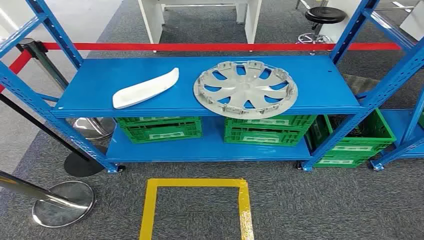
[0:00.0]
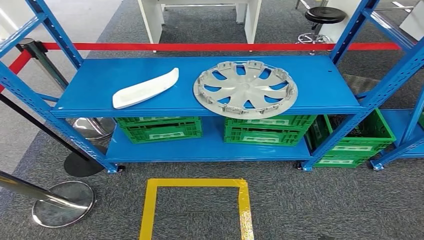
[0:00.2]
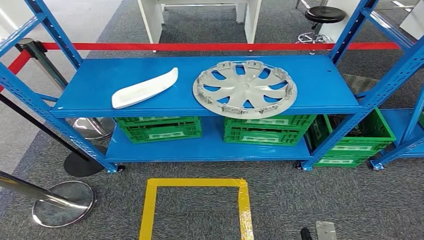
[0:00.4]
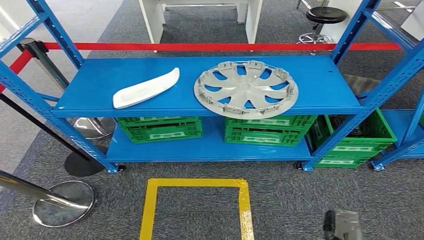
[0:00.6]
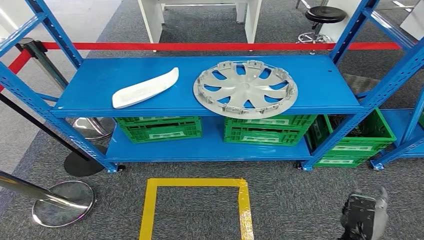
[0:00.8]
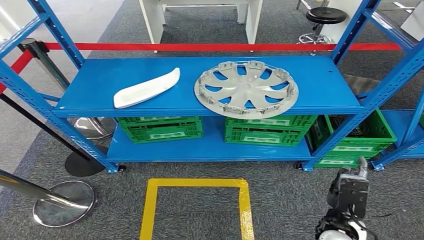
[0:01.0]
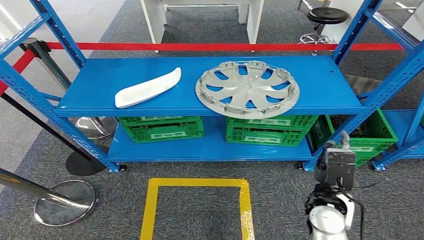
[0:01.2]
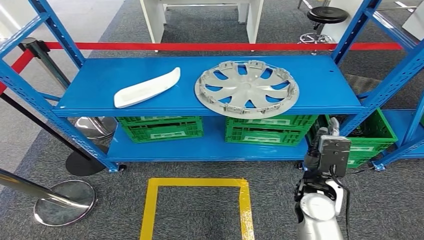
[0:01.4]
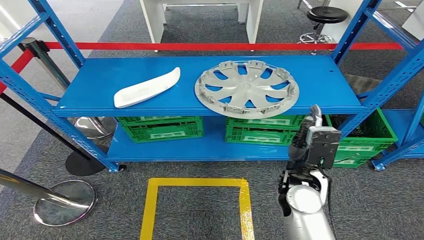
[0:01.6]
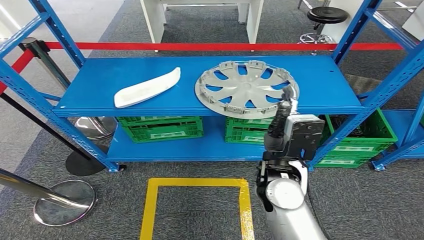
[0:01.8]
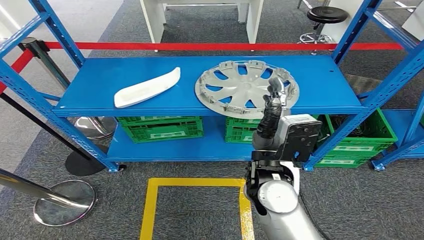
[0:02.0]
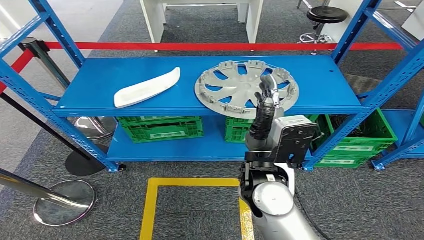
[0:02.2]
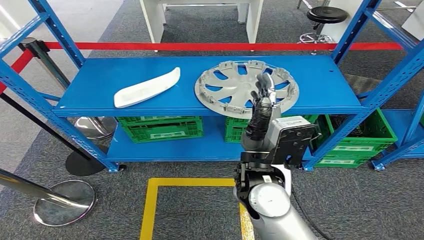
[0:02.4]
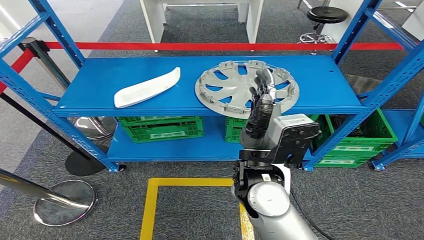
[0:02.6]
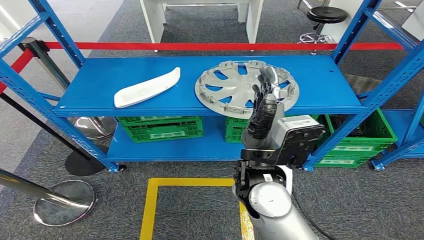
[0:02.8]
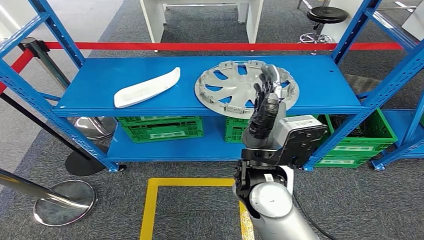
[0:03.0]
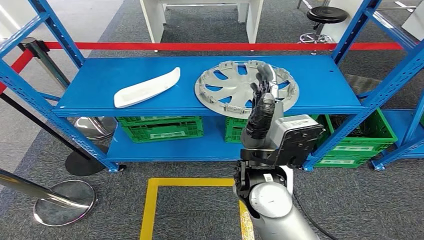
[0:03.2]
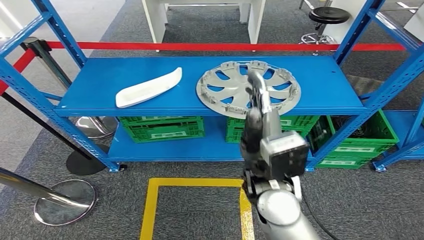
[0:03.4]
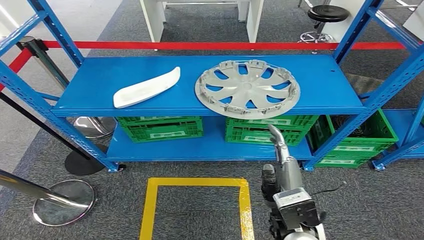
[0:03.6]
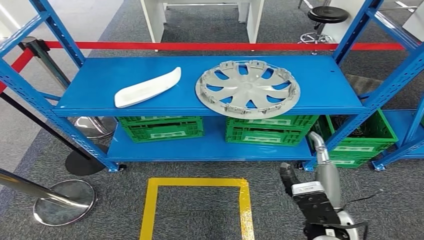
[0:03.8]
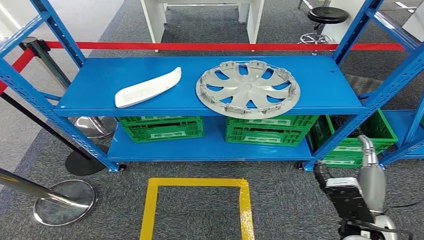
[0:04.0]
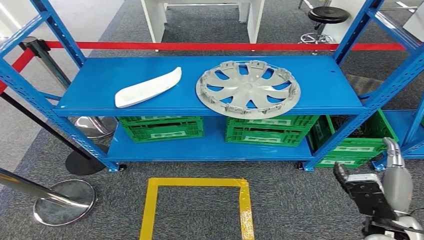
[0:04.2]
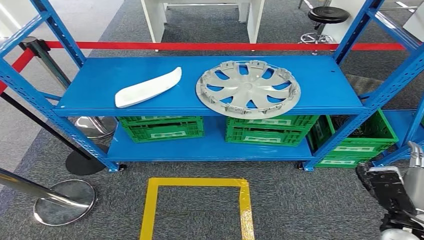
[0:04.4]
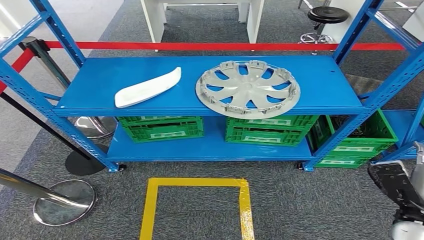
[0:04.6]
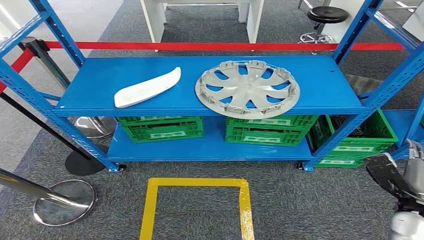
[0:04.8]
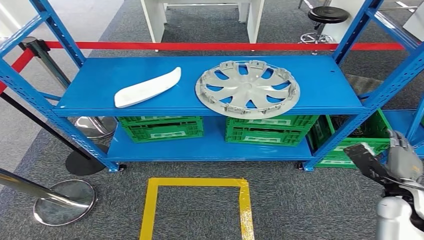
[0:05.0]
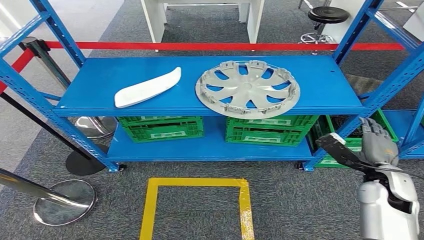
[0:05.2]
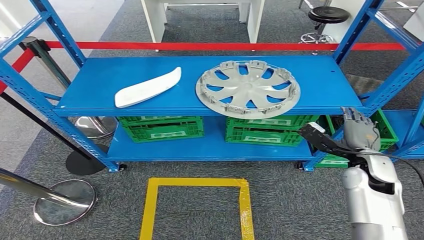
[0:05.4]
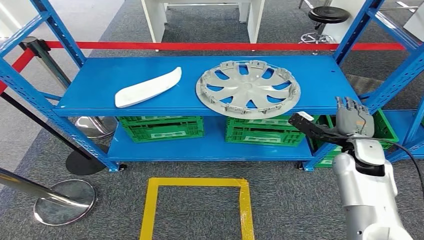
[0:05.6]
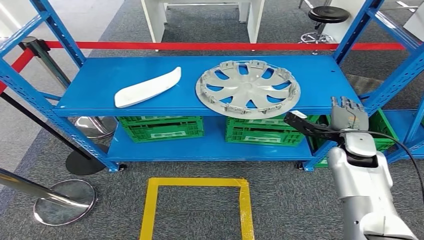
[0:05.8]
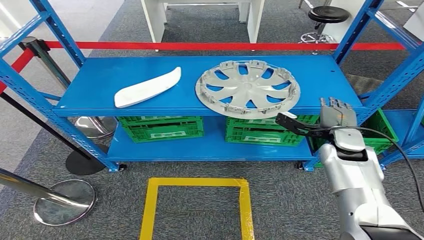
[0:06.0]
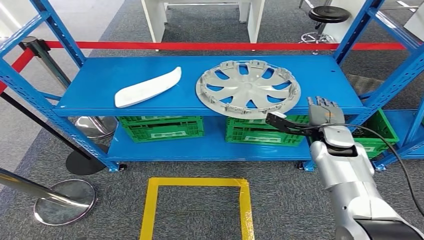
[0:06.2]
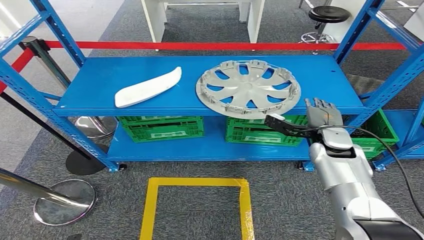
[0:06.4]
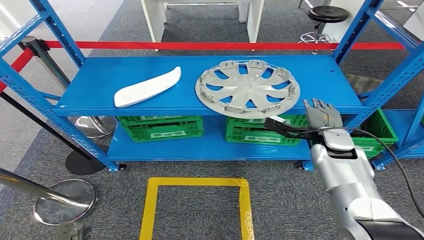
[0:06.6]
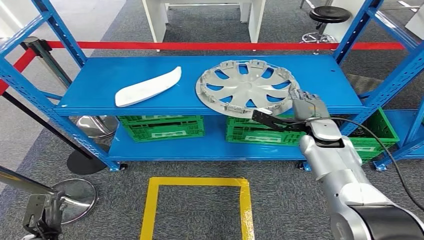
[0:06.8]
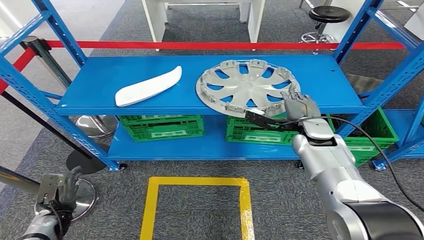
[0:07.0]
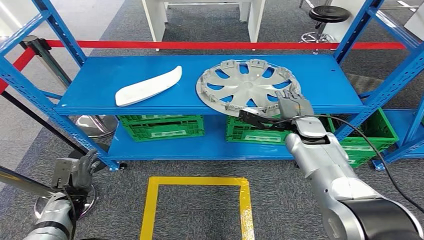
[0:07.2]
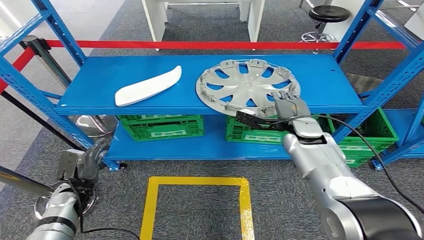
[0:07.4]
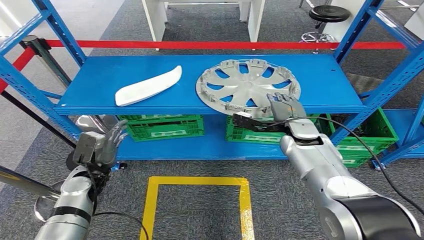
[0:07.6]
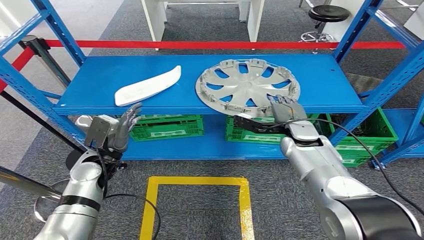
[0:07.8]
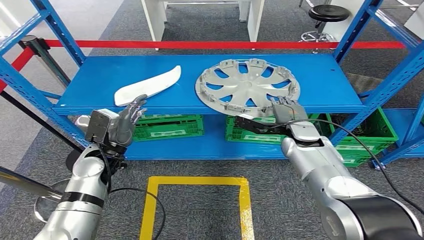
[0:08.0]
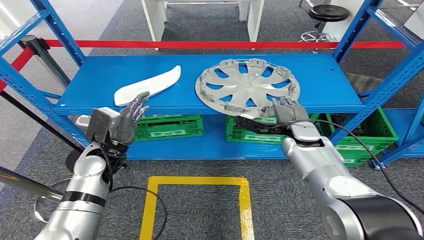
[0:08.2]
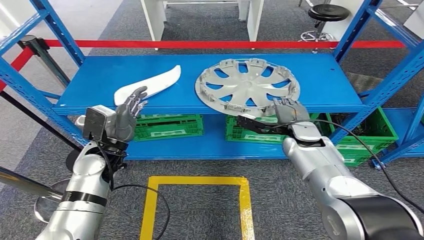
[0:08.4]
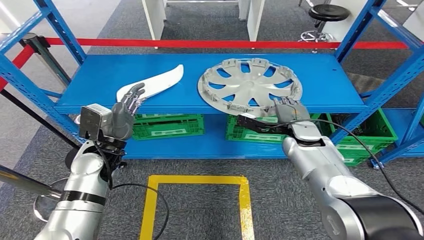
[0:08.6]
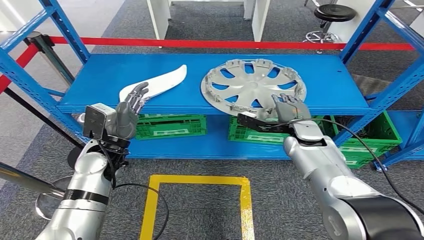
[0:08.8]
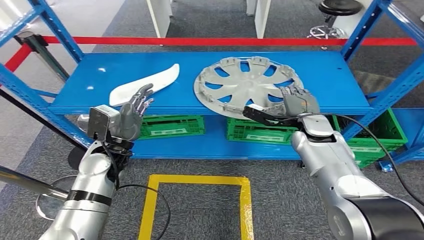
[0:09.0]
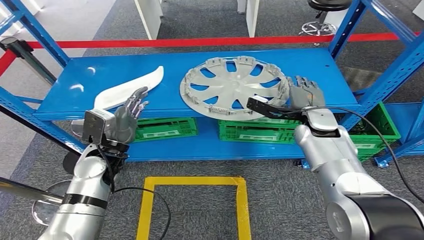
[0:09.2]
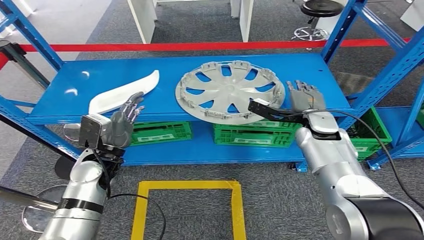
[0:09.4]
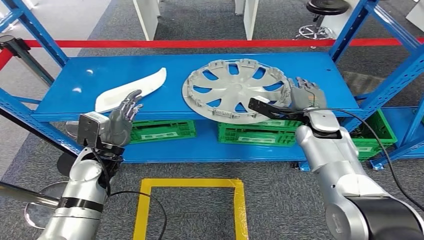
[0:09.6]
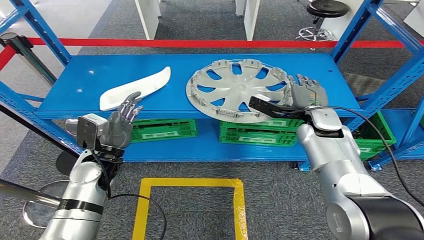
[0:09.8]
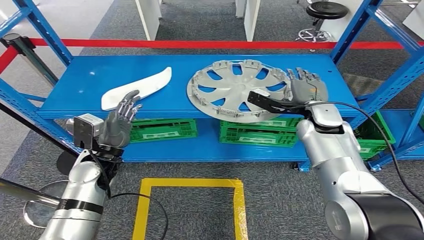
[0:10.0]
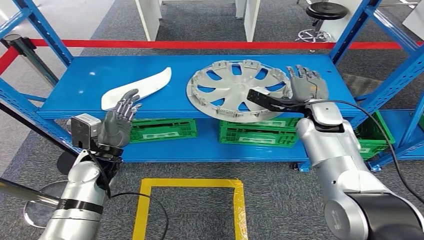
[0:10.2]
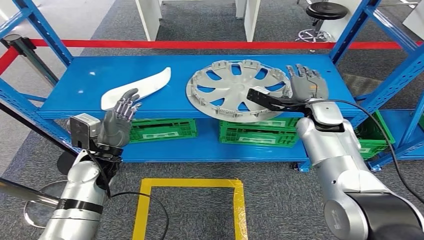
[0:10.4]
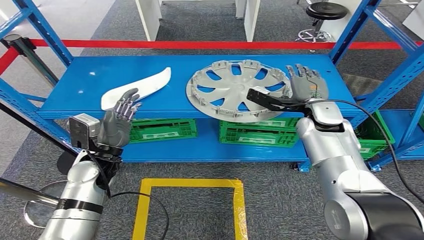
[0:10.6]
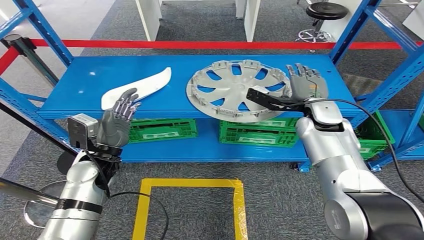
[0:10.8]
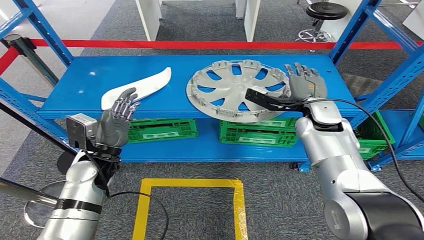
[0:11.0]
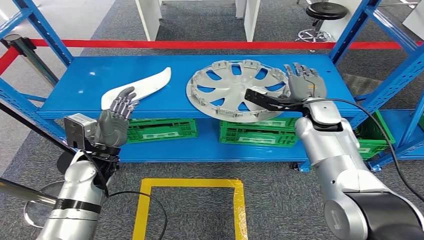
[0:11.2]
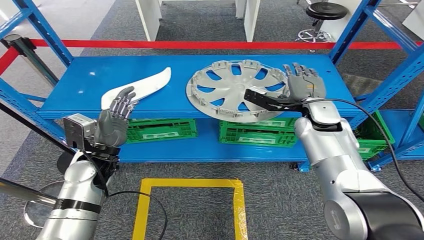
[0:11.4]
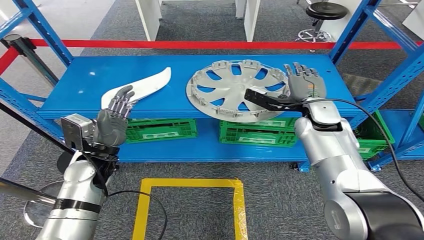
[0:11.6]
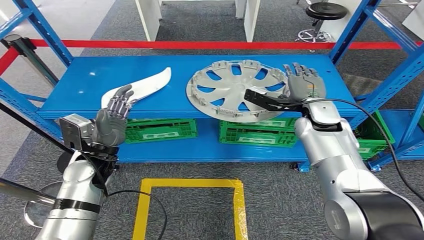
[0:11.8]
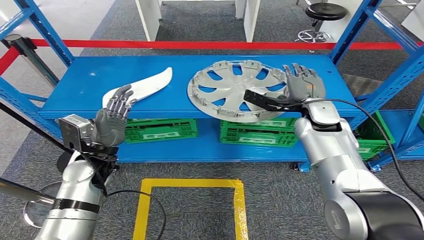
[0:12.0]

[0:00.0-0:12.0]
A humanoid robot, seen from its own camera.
0:01.6 to 0:03.0: The right hand goes about 15 cm upward and to the left.
0:03.0 to 0:04.4: The right hand heads to the right and downward, covering about 30 cm.
0:04.4 to 0:06.0: The right hand shifts roughly 20 cm forward.
0:10.4 to 0:12.0: Both hands stay put.

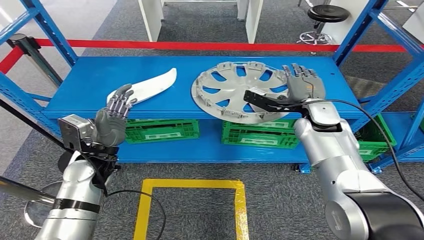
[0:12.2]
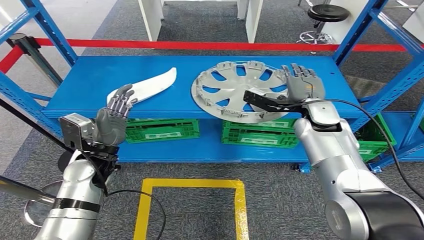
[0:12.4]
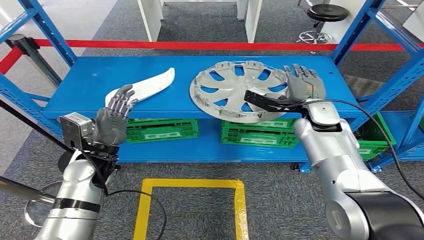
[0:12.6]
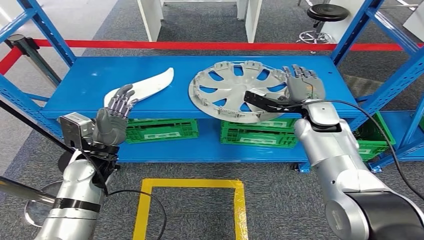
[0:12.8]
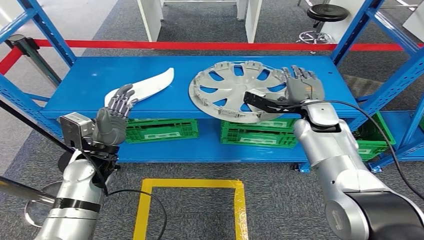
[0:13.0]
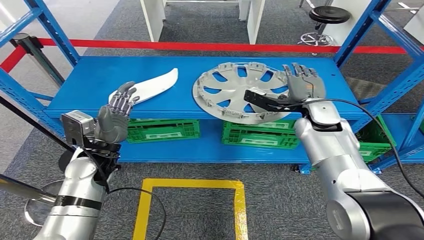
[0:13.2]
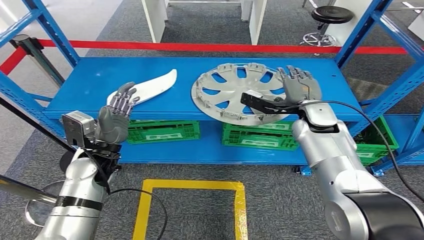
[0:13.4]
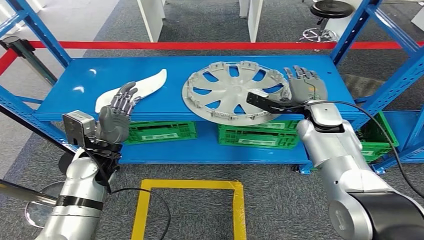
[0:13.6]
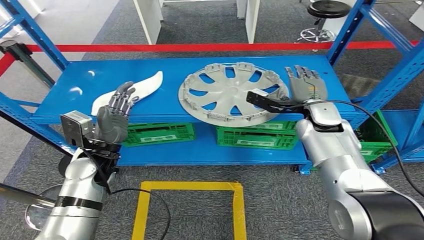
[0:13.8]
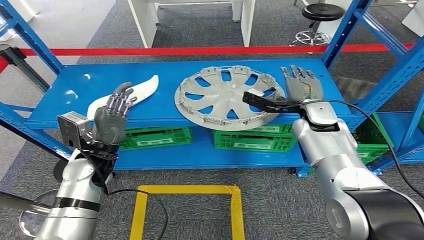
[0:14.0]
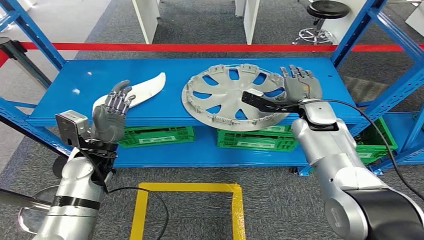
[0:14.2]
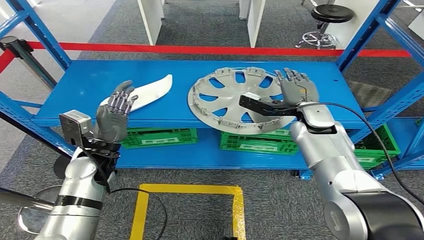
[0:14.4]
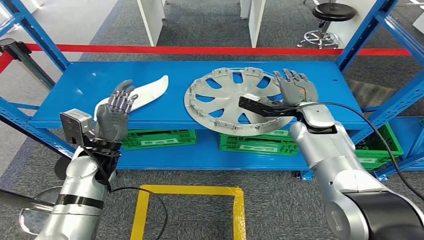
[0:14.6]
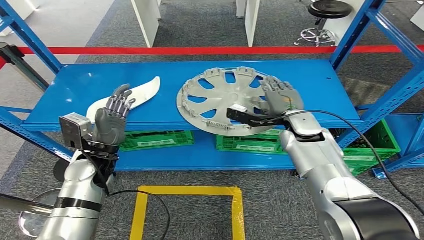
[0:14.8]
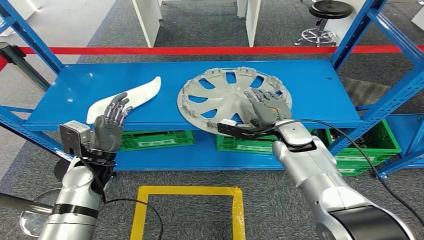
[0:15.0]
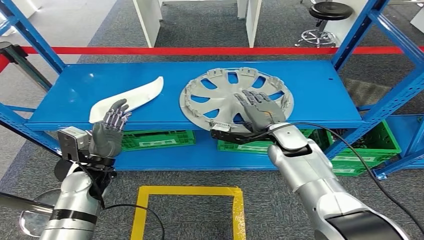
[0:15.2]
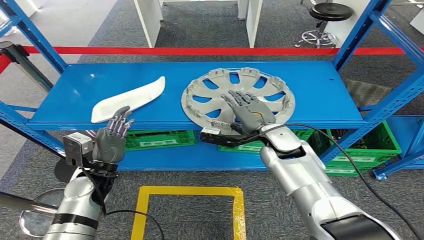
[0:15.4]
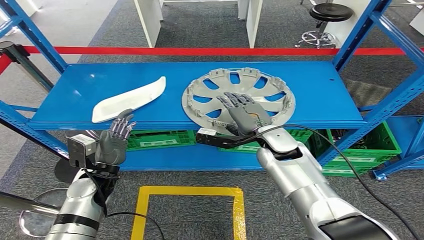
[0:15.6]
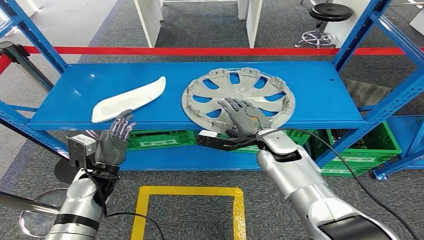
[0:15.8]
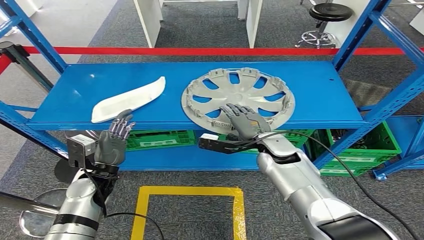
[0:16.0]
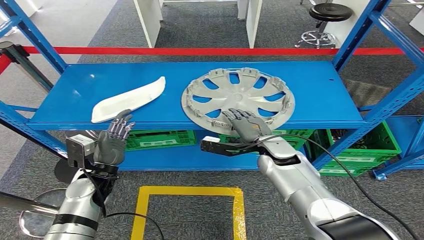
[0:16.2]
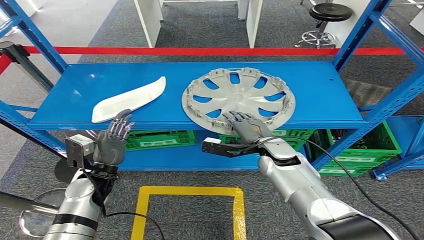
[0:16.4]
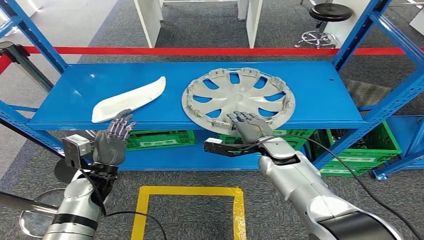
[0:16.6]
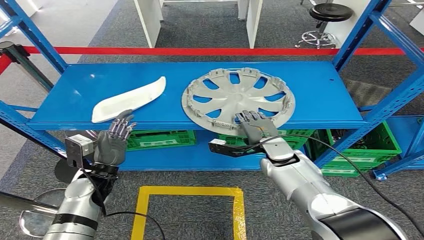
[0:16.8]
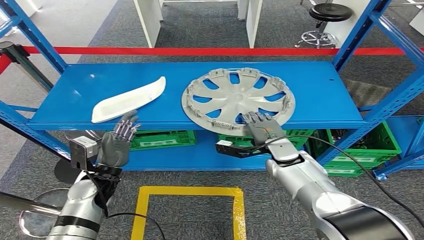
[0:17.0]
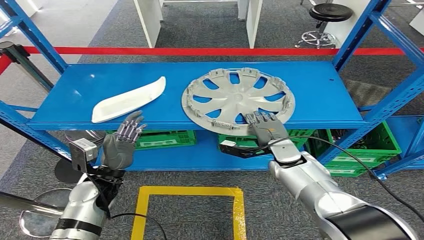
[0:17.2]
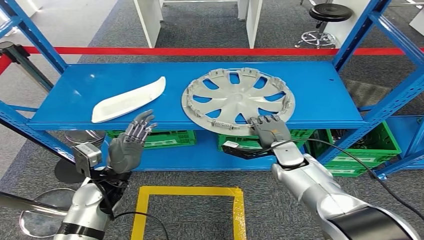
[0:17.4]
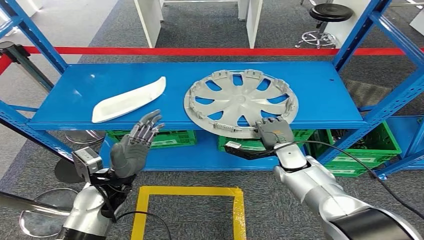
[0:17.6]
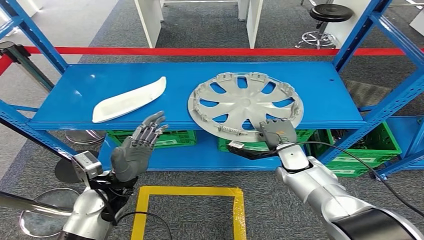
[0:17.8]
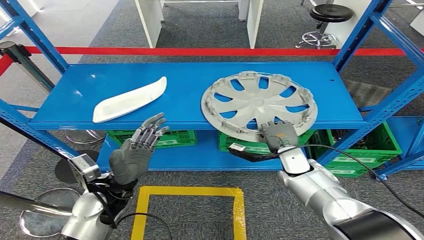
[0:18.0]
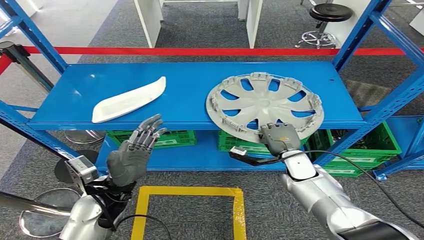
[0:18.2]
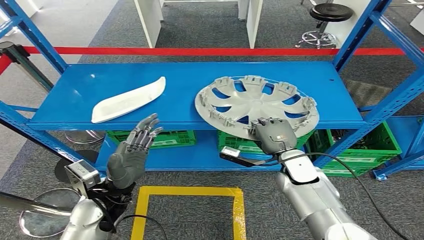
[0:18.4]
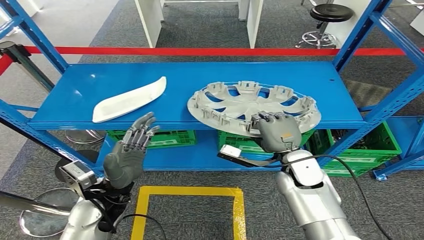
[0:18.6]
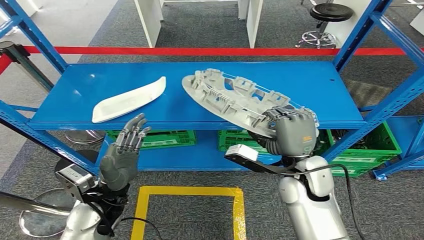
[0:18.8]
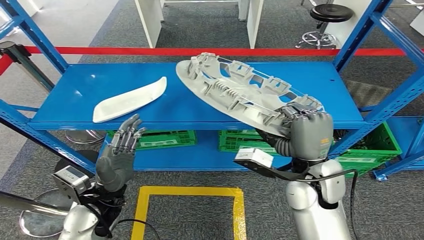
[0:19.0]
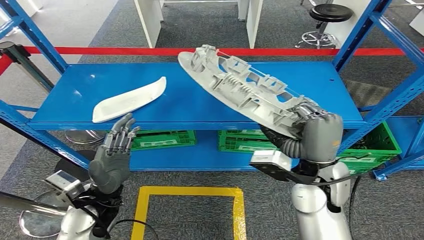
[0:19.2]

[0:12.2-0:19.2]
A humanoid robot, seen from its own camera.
Step, 0:12.2 to 0:18.8: Pick up the small component from the shelf.
0:16.4 to 0:17.8: Both hands travel together to the right, some 5 cm.
